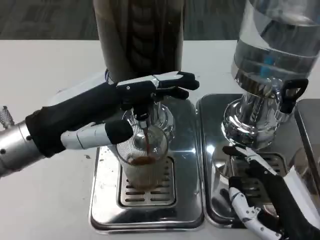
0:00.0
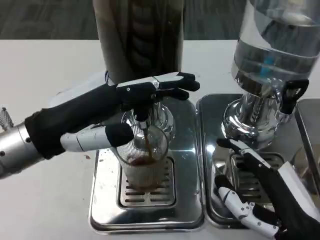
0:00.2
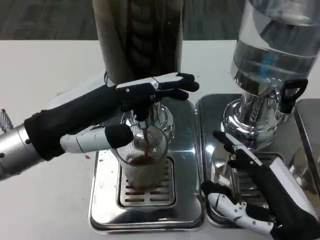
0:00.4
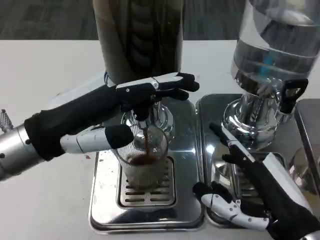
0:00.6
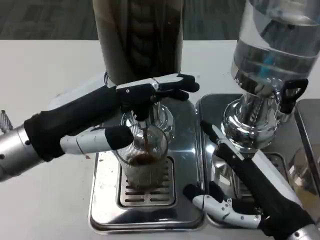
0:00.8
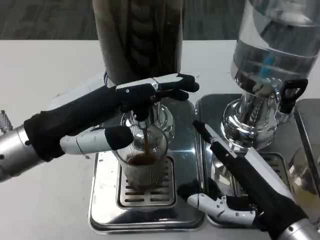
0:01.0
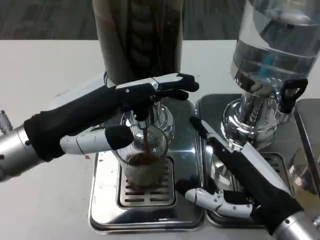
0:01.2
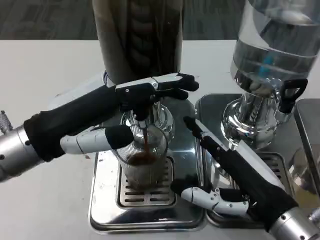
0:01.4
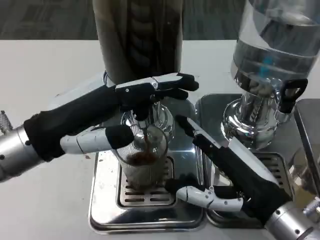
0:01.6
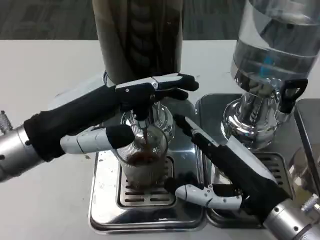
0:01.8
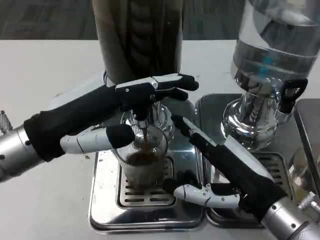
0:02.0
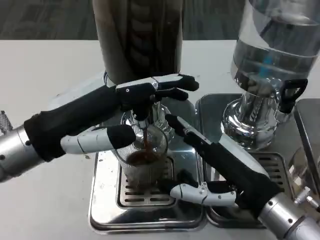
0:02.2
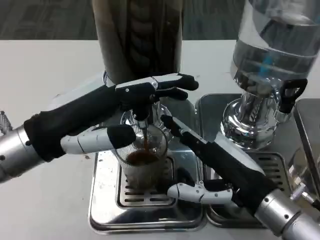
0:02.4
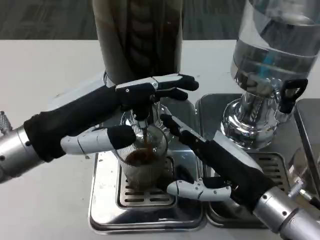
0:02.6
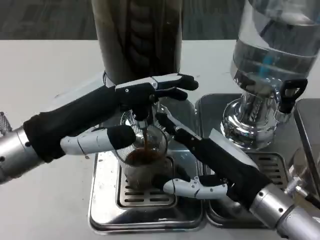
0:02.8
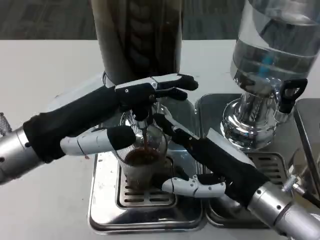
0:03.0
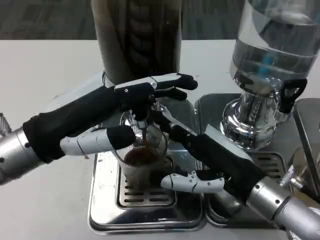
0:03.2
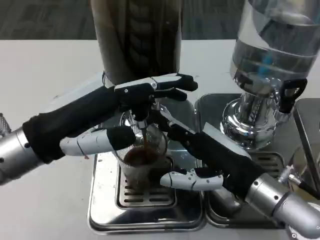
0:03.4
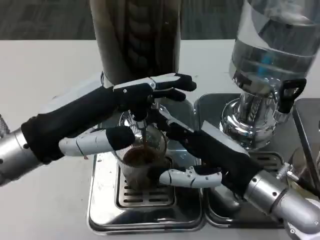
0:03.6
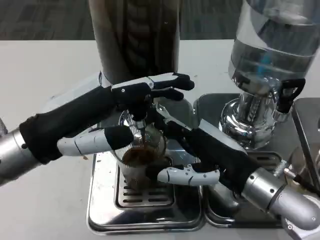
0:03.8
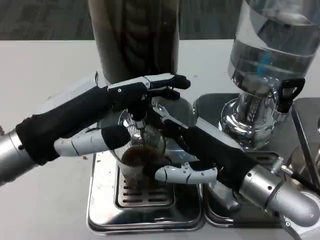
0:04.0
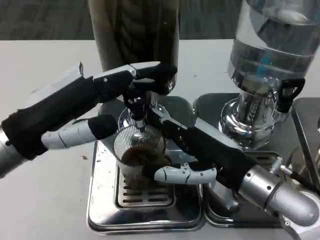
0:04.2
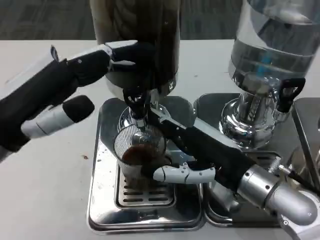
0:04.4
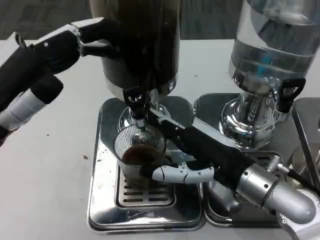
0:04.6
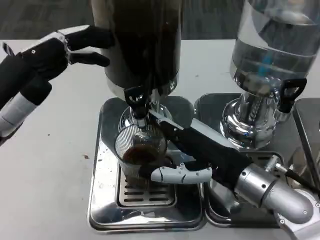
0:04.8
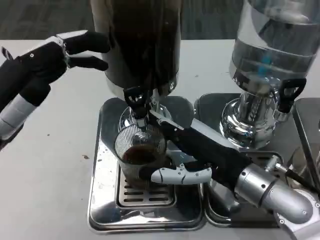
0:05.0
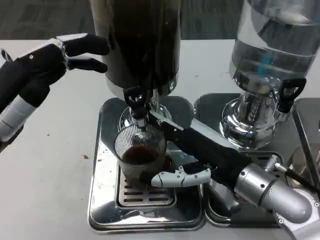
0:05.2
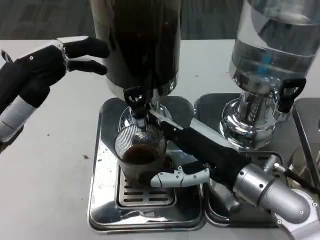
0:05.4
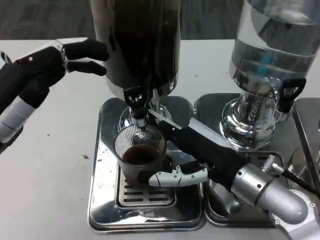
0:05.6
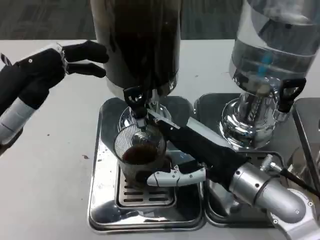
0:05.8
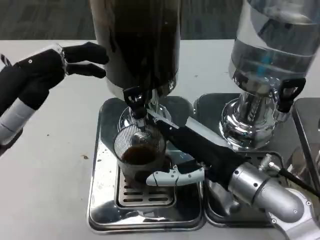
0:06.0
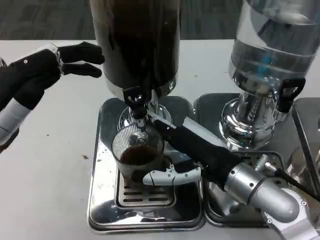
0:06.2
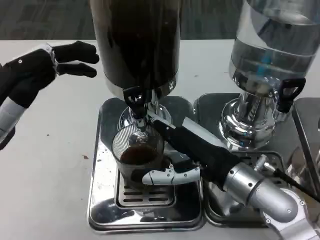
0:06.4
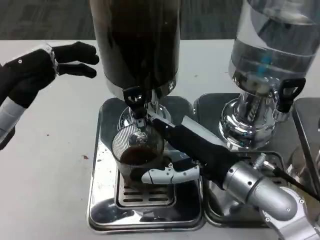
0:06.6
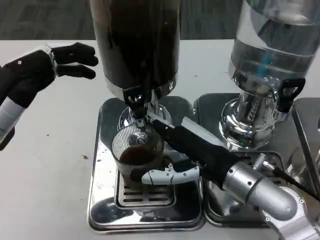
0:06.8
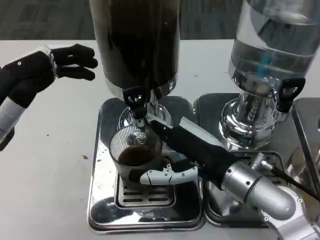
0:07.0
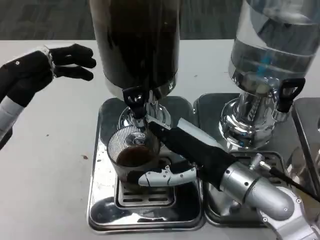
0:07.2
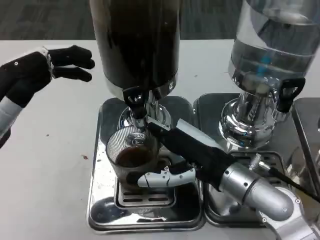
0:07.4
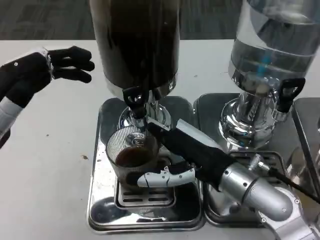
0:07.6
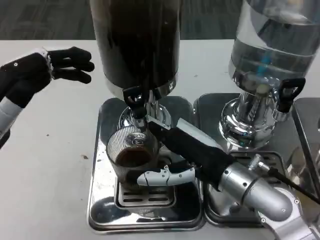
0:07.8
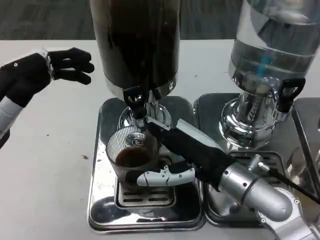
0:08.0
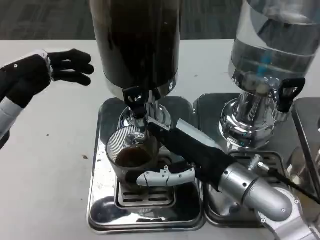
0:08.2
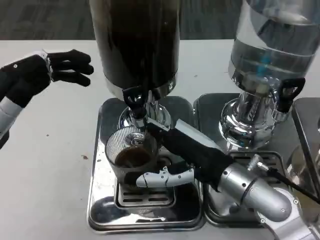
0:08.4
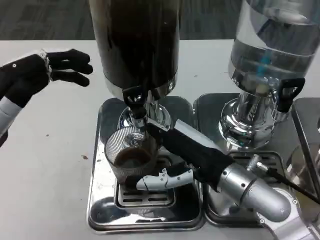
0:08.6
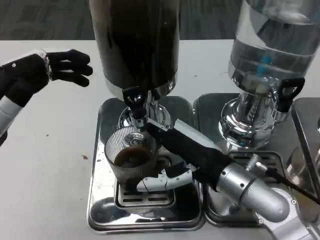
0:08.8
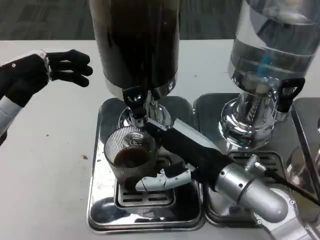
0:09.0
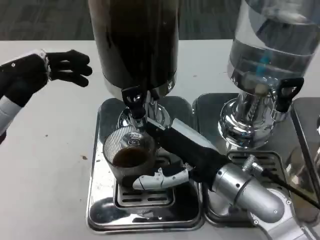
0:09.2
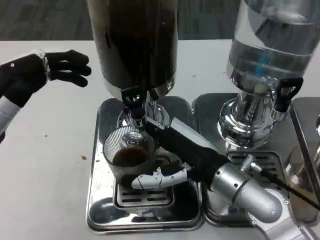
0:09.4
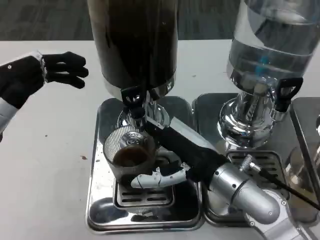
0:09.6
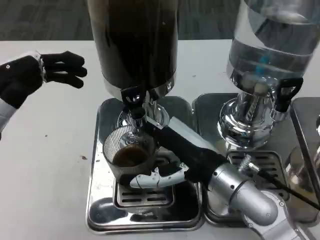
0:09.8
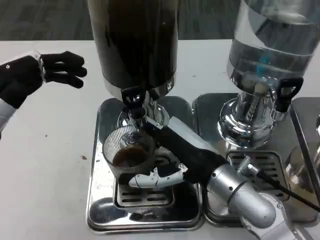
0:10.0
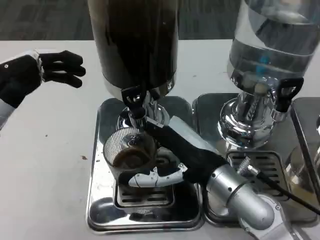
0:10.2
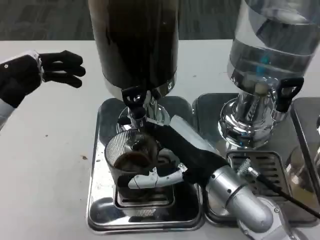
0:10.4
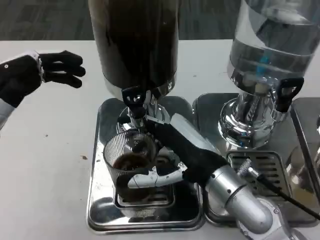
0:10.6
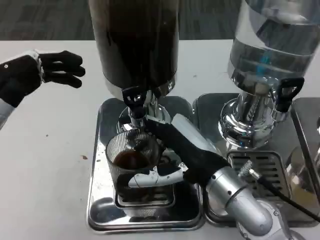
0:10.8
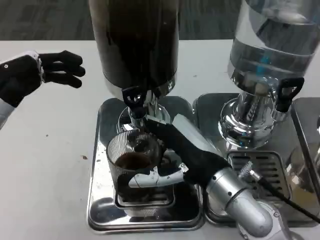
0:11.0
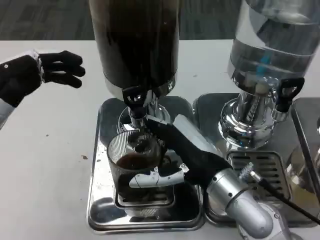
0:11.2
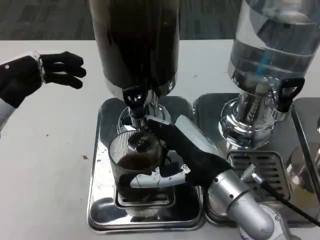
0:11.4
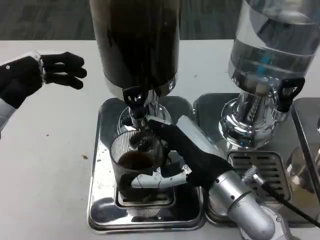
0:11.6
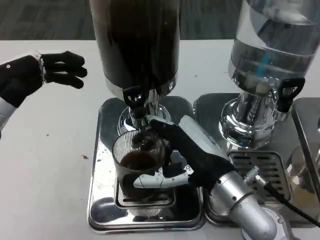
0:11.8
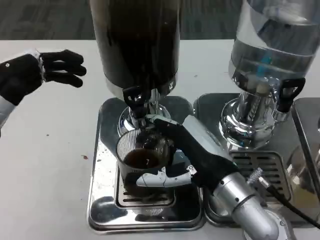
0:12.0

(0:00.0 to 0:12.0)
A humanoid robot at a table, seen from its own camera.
Task of the whole recording: Grasp the cup under the faucet to collect the drink, then remove the cup.
0:00.0 - 0:01.6: The right hand travels forward by about 5 cm.
0:01.6 - 0:03.0: The hands stay close to where they were, moving slightly.
0:04.4 - 0:06.0: The hands stay close to where they were, moving slightly.
0:06.0 - 0:07.6: Both hands stay about where they are.
0:07.6 - 0:09.0: The two hands keep their place.
0:09.0 - 0:12.0: The hands stay close to where they were, moving slightly.

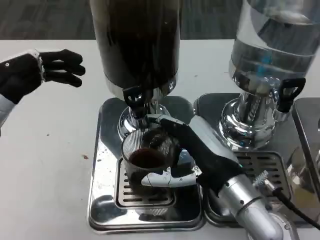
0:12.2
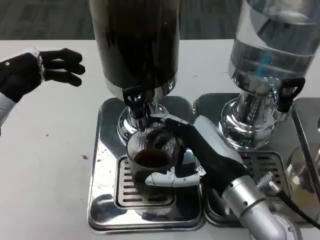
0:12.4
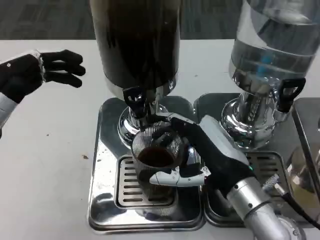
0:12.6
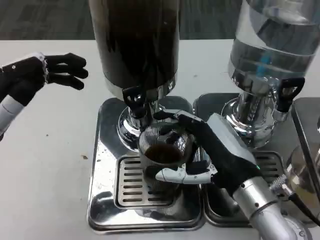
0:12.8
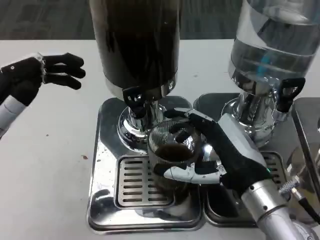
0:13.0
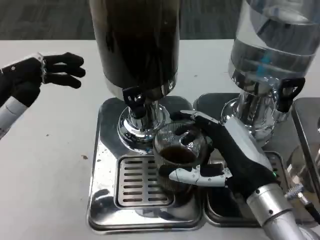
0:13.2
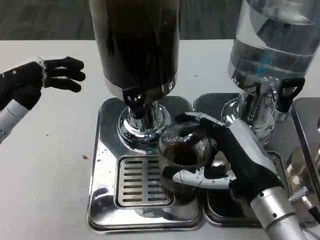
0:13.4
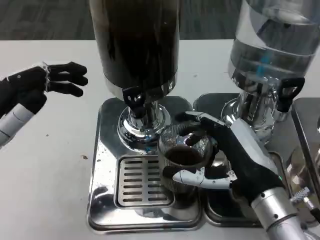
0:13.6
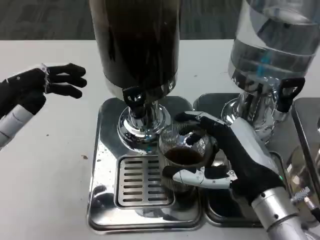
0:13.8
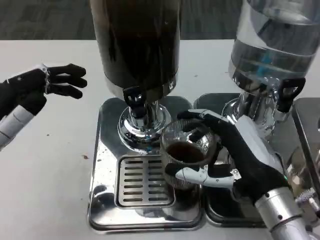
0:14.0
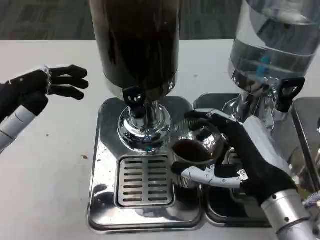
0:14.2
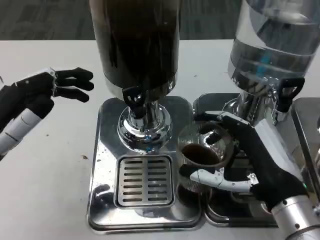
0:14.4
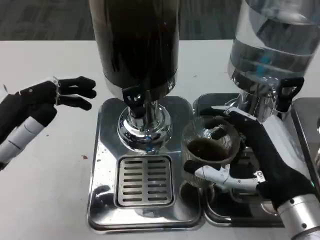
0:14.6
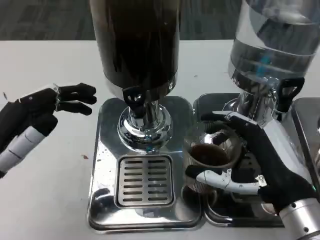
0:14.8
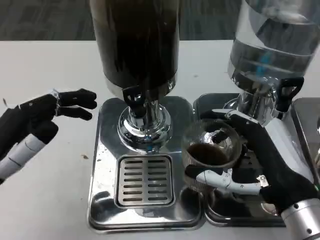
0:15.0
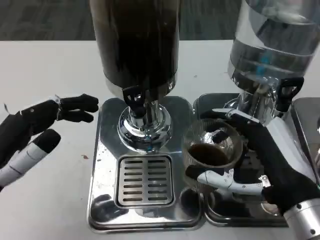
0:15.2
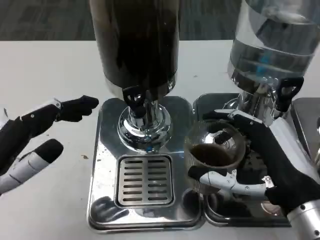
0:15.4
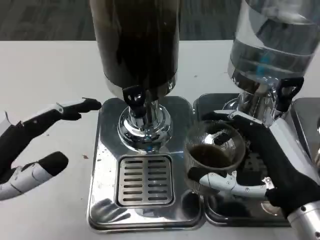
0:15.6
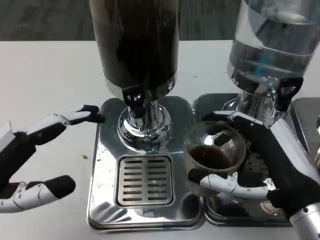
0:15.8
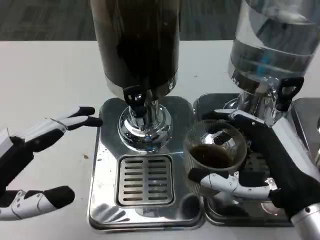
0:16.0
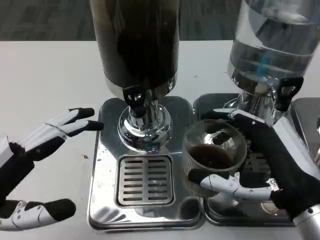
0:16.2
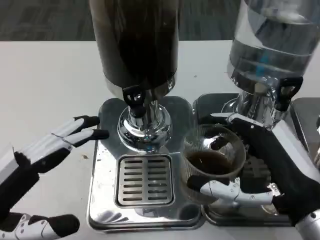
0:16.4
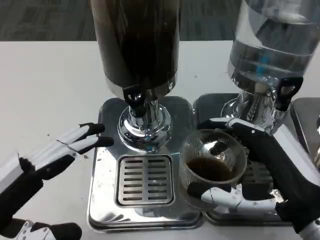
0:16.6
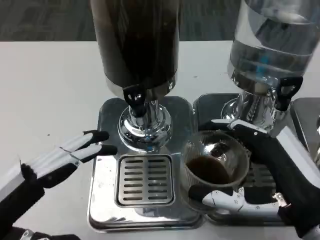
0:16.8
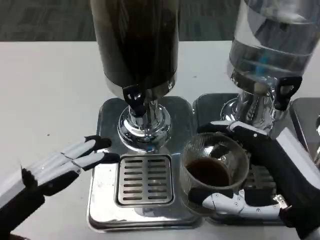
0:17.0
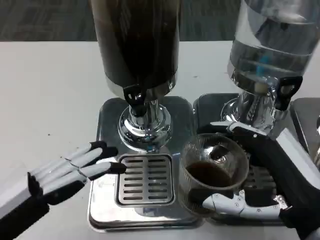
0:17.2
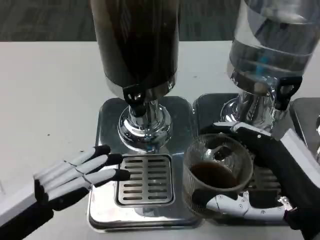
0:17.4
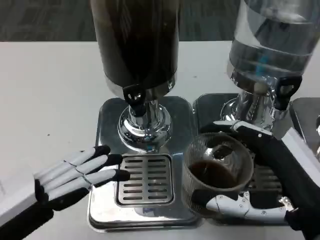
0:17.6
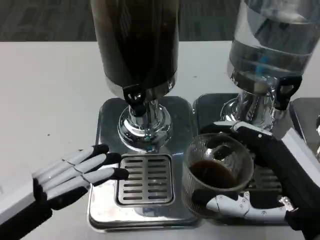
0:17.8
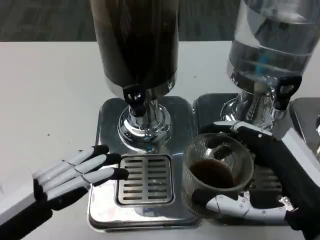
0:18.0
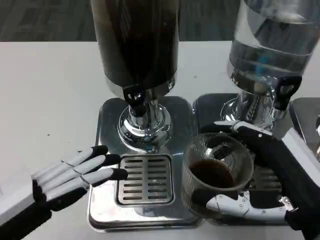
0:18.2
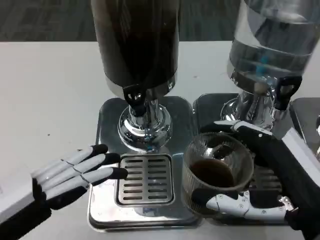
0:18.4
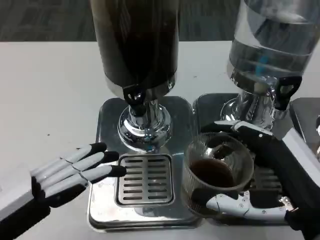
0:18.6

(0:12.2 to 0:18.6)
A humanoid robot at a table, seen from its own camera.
Task of the whole recording: Grasp the cup under the faucet to collect the drink, then remove the cup.
0:17.0 - 0:18.6: The hands make only small movements.

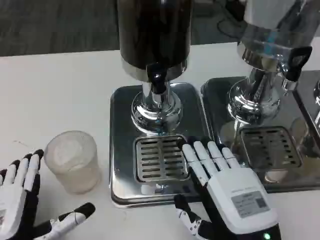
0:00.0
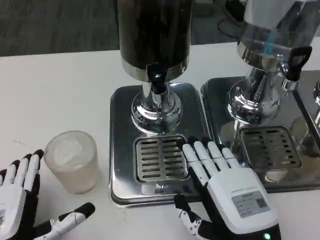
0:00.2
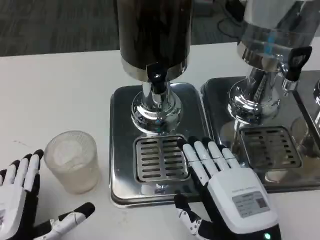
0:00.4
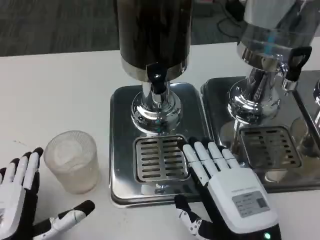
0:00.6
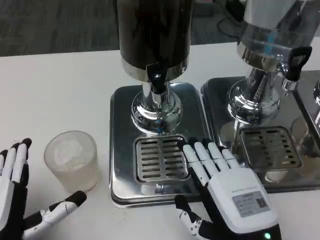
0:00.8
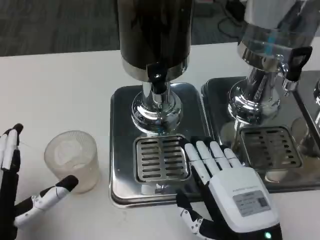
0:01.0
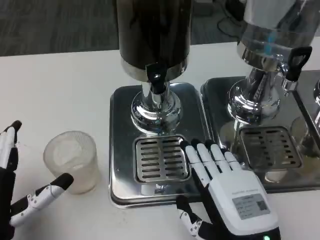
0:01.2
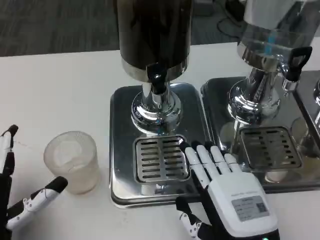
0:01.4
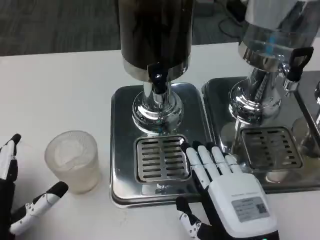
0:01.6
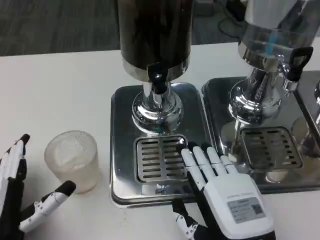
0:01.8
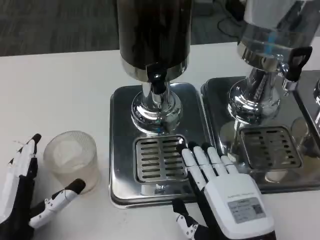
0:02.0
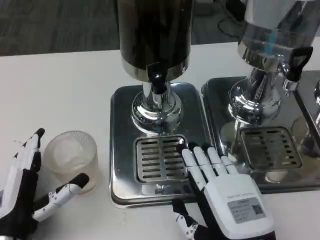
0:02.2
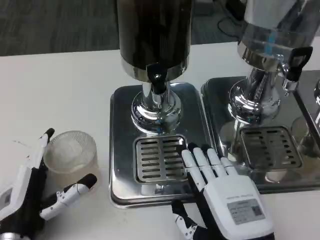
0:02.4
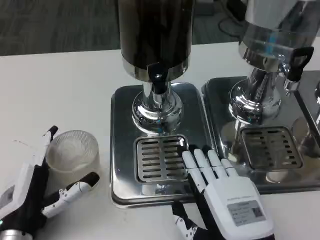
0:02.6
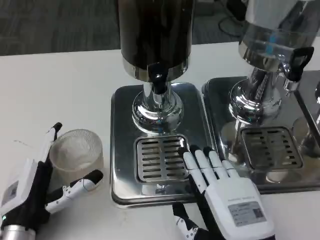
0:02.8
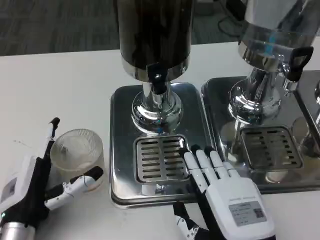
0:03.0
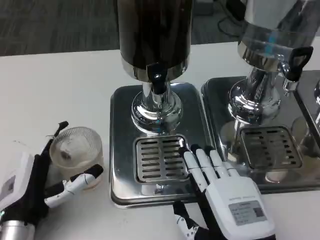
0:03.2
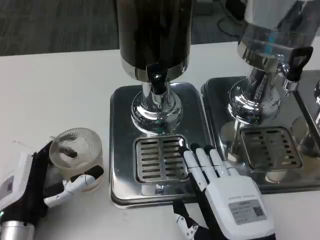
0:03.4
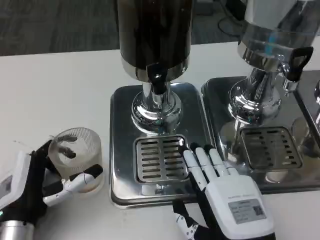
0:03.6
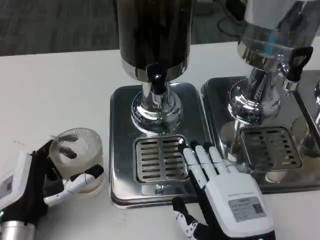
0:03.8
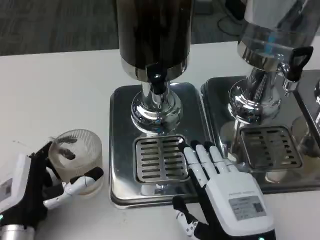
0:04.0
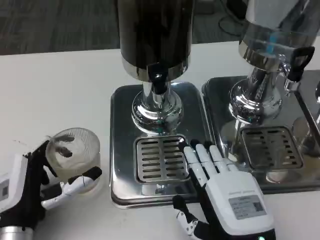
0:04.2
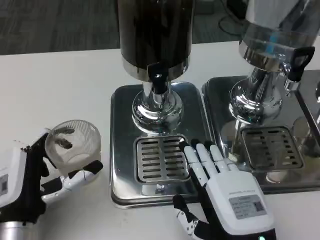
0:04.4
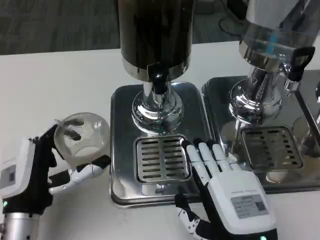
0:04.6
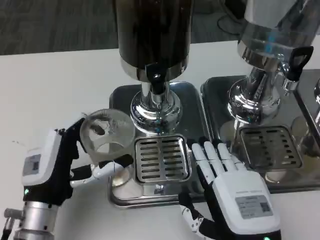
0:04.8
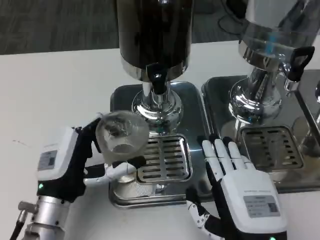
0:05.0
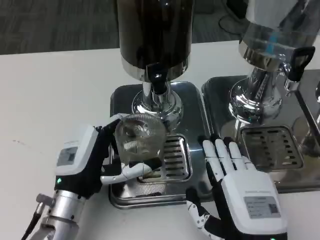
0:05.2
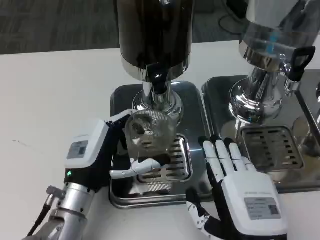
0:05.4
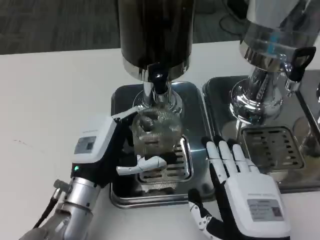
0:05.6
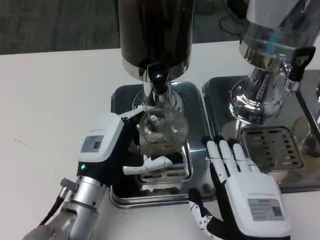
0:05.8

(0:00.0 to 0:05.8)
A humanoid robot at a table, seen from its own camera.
Task of the whole recording: Grasp the cup under the faucet to collect the drink, then remove the cup.
0:01.4 - 0:02.8: The left hand ends up some 5 cm from where it was.
0:02.8 - 0:04.4: The hands stay close to where they were, moving slightly.
0:04.4 - 0:05.8: The left hand moves to the right and forward, some 10 cm.
